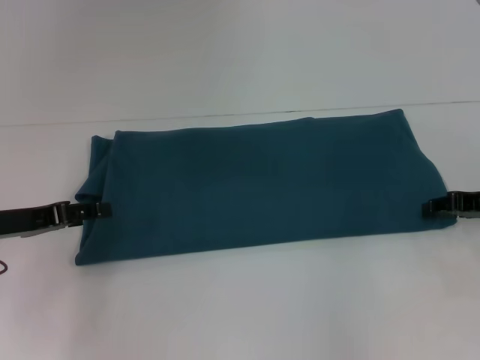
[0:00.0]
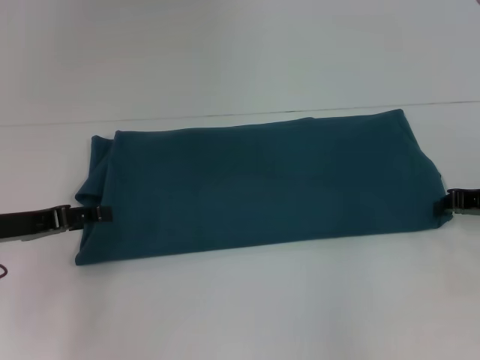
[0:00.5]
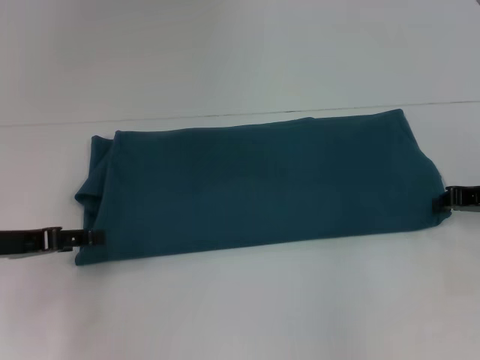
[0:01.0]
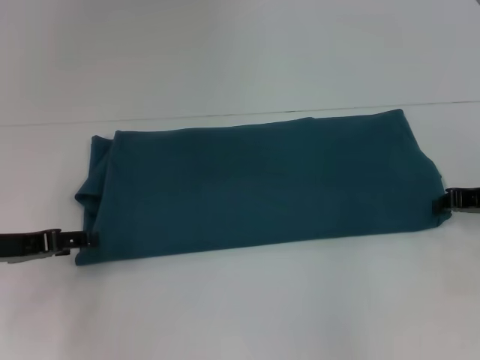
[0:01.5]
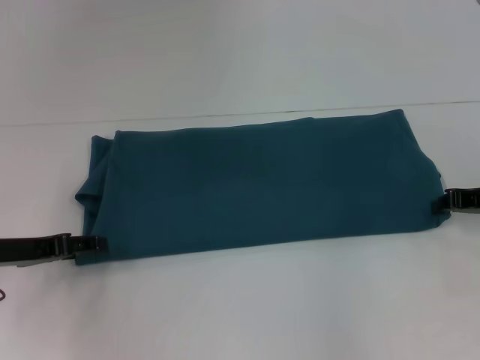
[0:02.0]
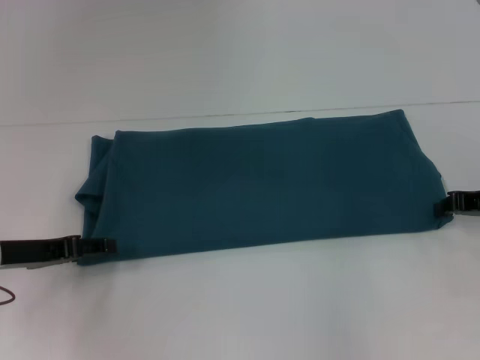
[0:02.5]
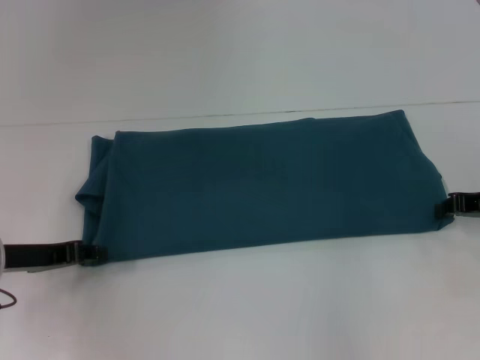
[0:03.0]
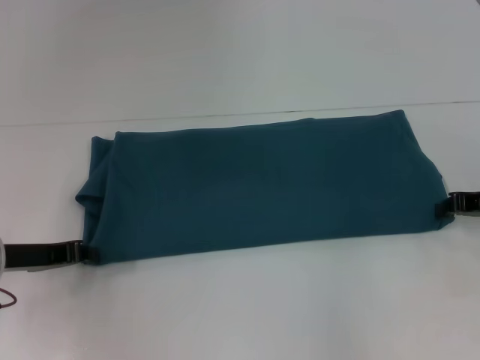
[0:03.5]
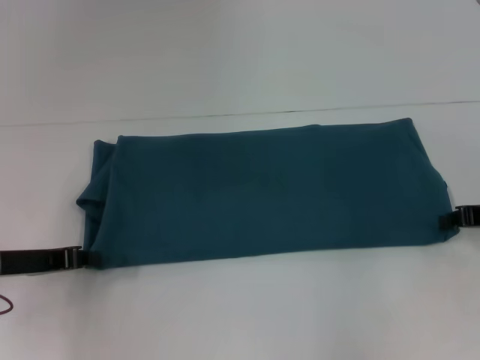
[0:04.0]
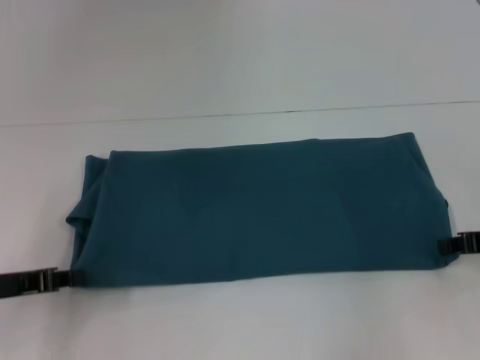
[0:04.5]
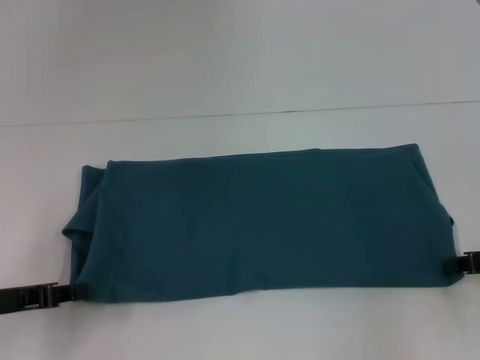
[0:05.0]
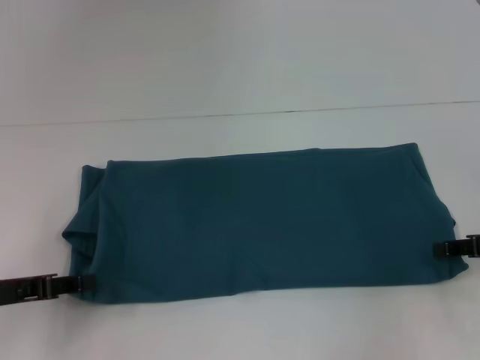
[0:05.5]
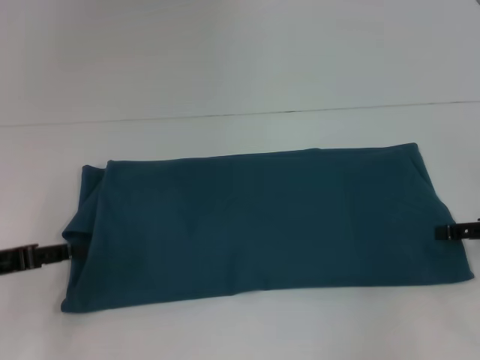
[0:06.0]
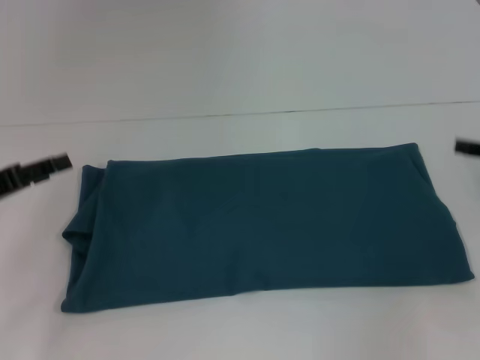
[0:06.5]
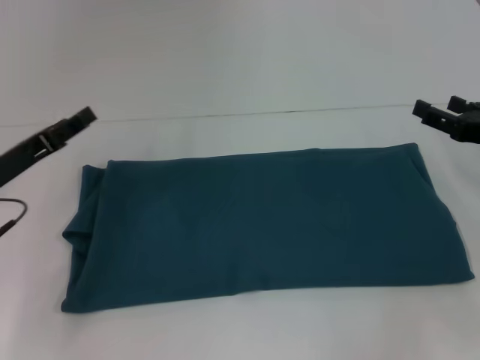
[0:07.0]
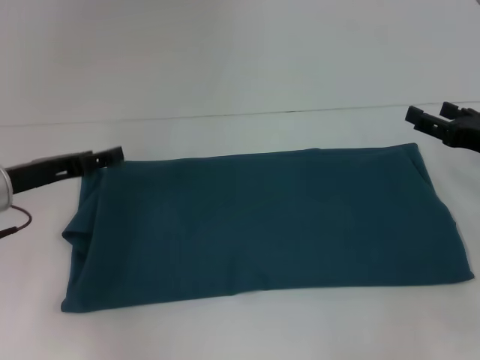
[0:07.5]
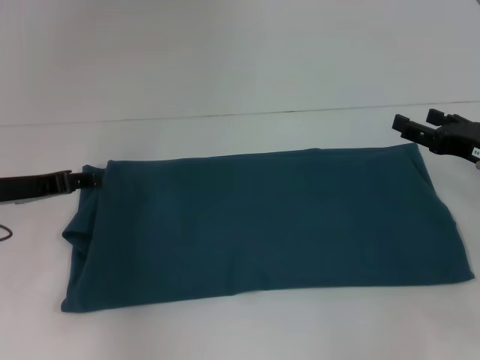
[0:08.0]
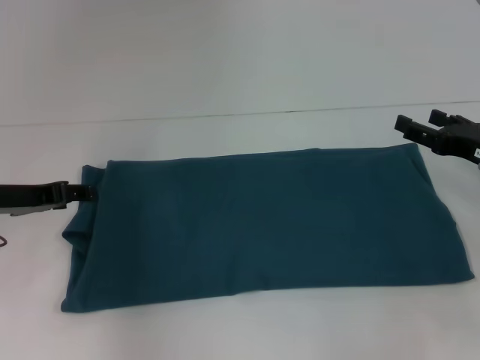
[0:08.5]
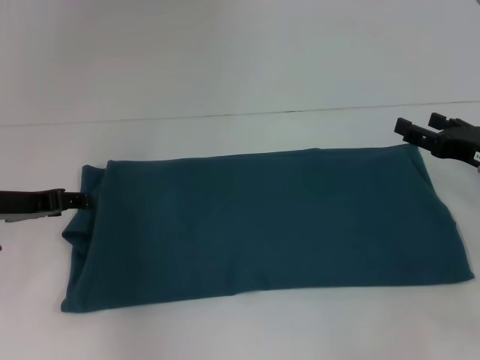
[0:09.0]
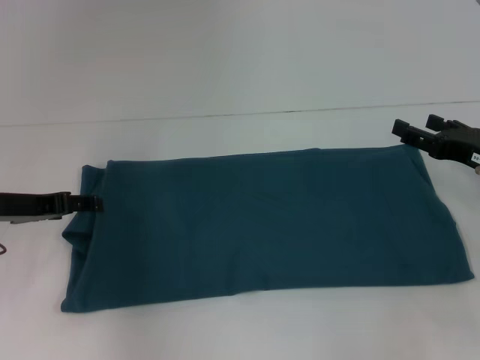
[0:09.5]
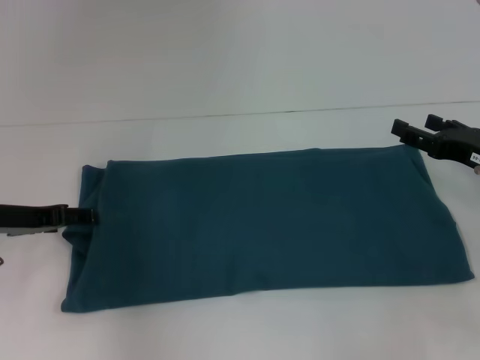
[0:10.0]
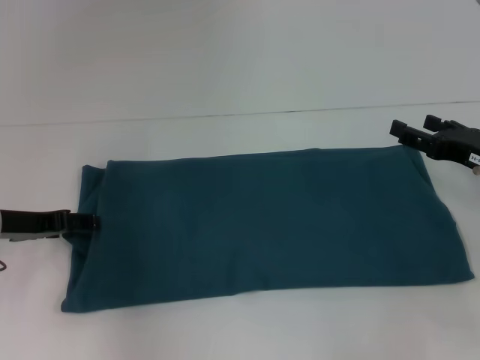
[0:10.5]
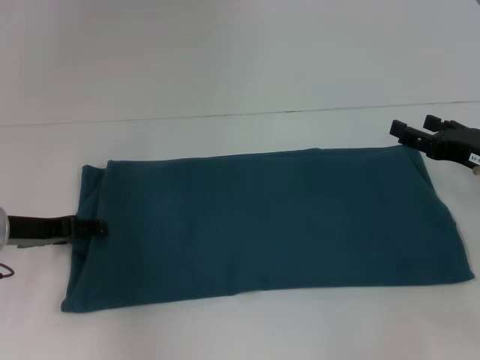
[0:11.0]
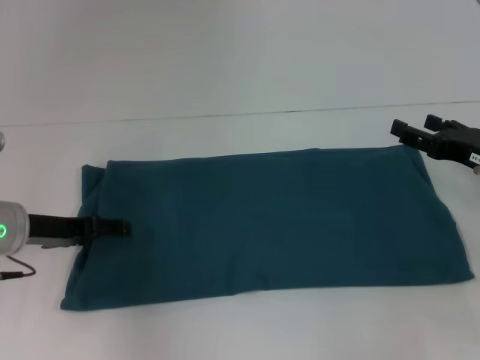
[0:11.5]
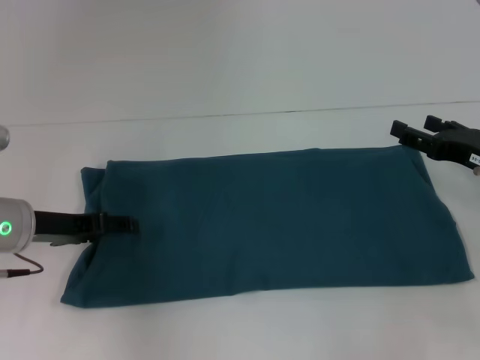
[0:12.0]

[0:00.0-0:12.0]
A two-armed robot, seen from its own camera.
Step, 0:00.0 to 0:05.5: Pull the clothes with your left hand.
Step, 0:00.0 to 0:05.5: Pull the clothes with your right hand.
0:02.0 to 0:04.0: The left gripper closes.
0:04.0 to 0:06.0: The right gripper opens its fingers; the left gripper shifts by some 5 cm, and opens its fingers.
0:06.0 to 0:08.0: The left gripper moves forward, roughly 10 cm, while the right gripper changes place by some 5 cm.
0:08.0 to 0:12.0: The grippers move only a little.

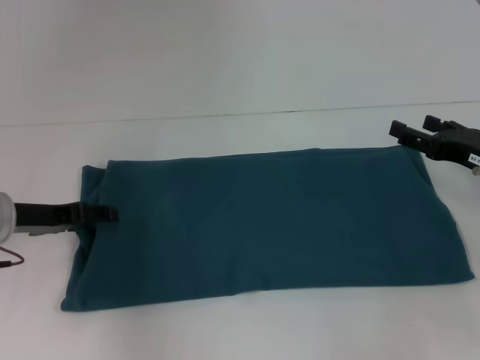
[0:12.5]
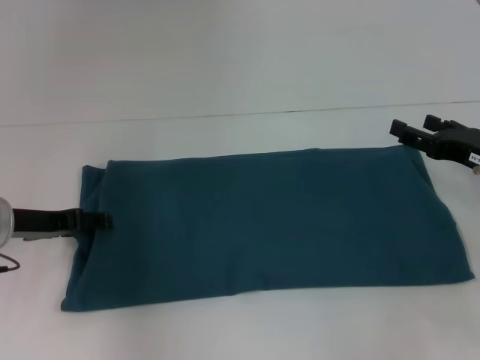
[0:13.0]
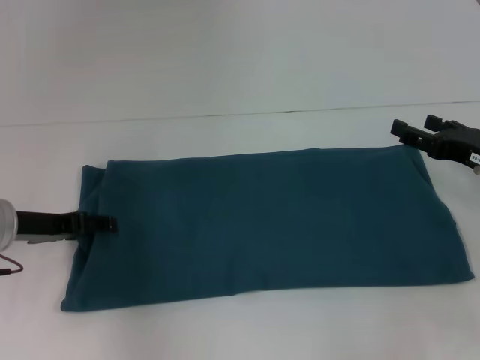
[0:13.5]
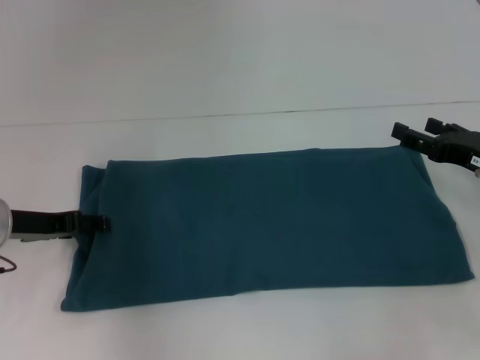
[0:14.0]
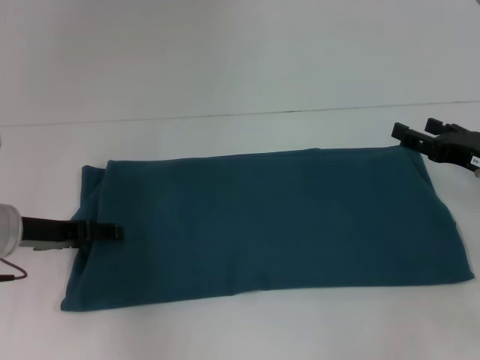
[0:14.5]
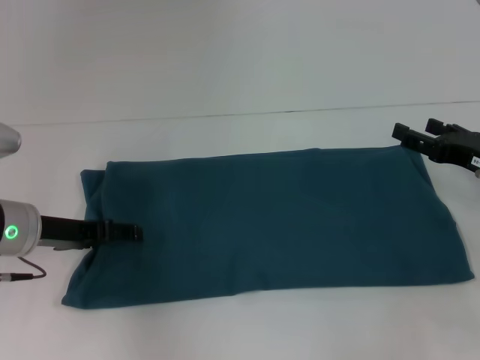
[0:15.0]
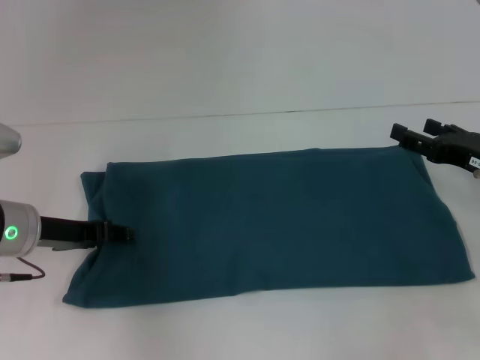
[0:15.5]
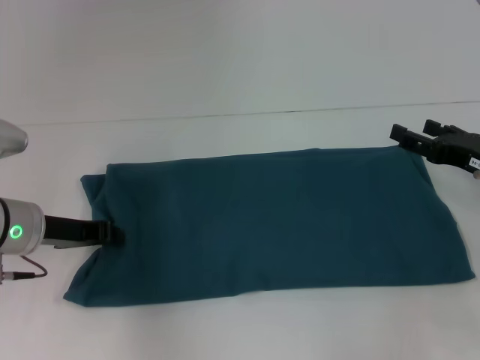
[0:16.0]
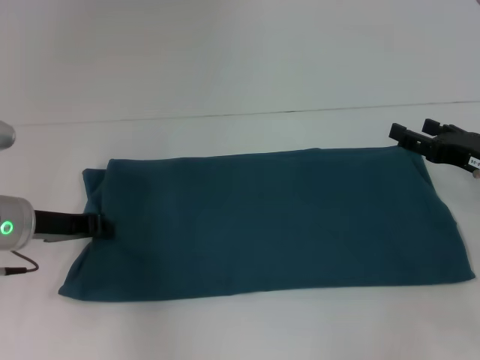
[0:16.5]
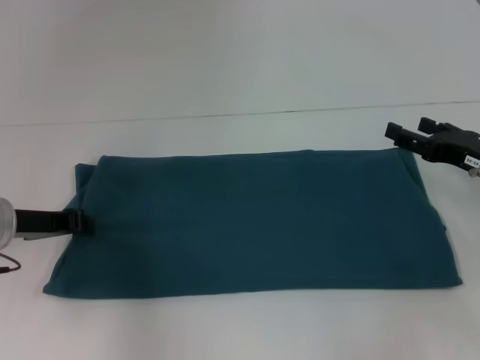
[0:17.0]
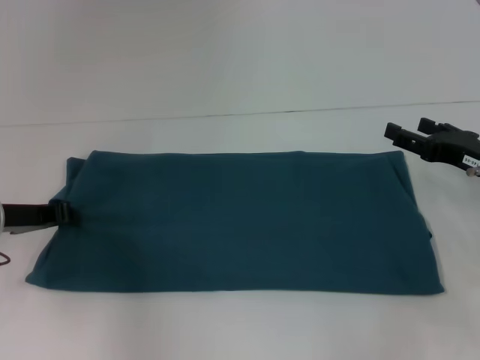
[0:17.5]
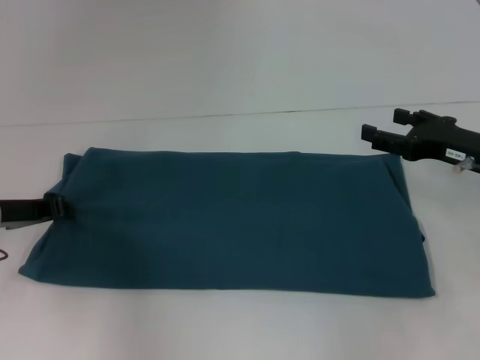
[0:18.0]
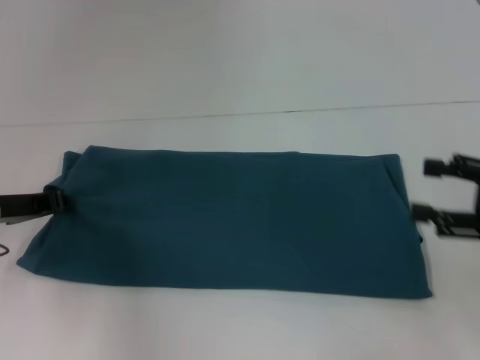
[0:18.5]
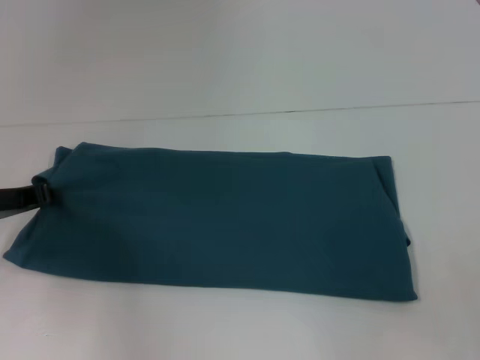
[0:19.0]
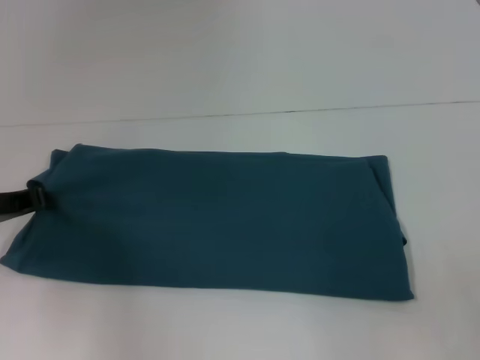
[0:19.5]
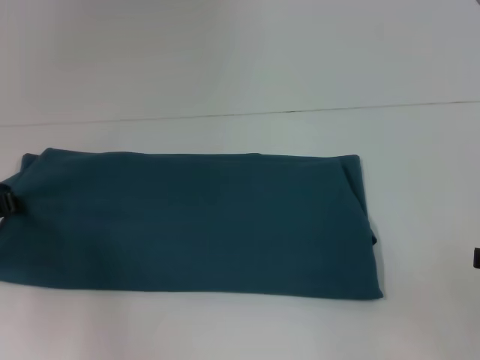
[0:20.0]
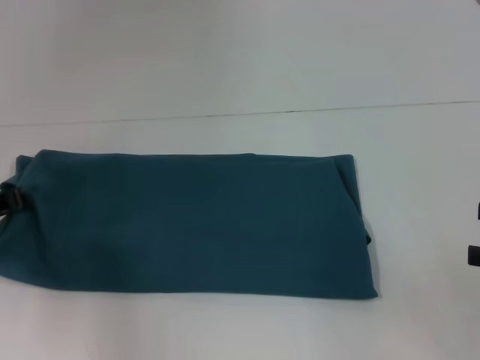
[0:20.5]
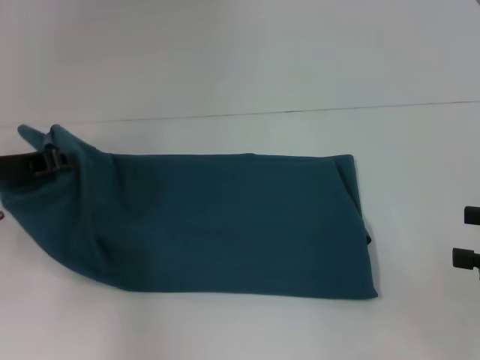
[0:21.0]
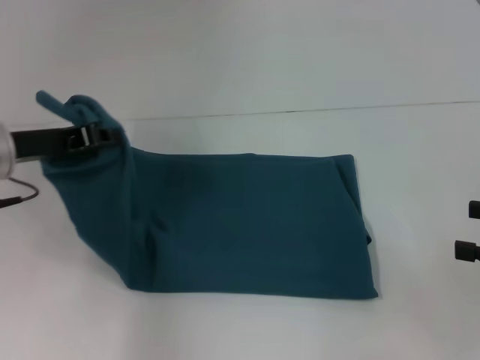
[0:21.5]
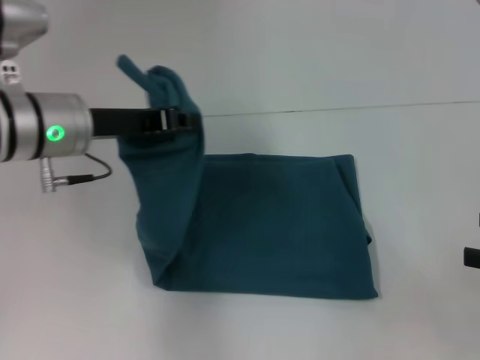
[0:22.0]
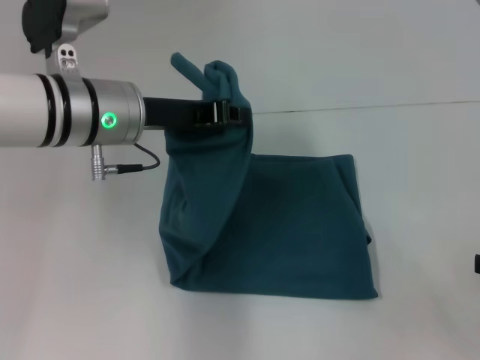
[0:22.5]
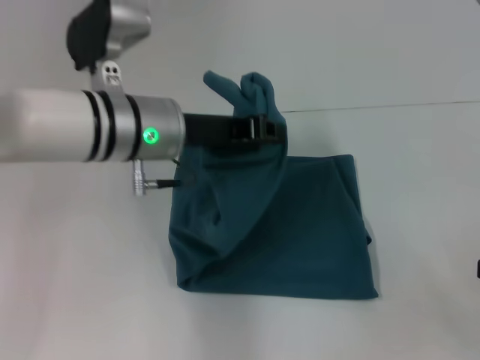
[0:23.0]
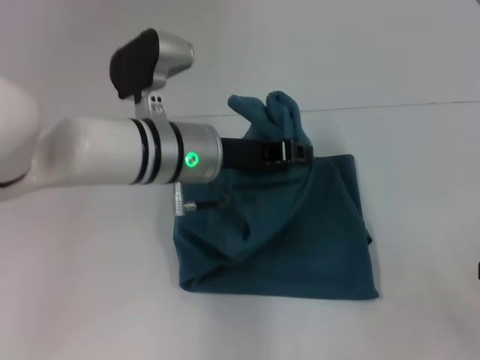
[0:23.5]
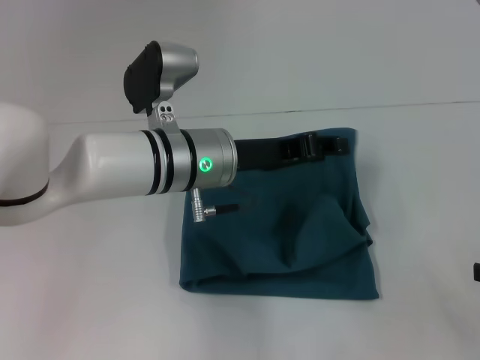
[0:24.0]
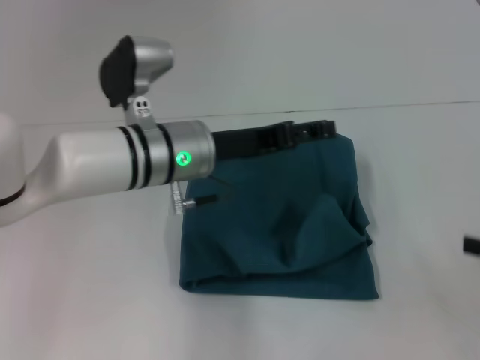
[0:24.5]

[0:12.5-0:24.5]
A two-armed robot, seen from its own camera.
Step, 0:12.5 to 0:24.0: Fold the clothes to the left.
0:12.5 to 0:14.5: Neither gripper changes place.
0:14.5 to 0:16.5: The left gripper closes its fingers.
0:16.5 to 0:18.5: The right gripper goes roughly 10 cm backward and upward.
0:20.5 to 0:22.5: The left gripper goes about 20 cm to the right and upward.
0:22.5 to 0:24.5: The left gripper is displaced to the right and downward by some 10 cm, and opens its fingers.

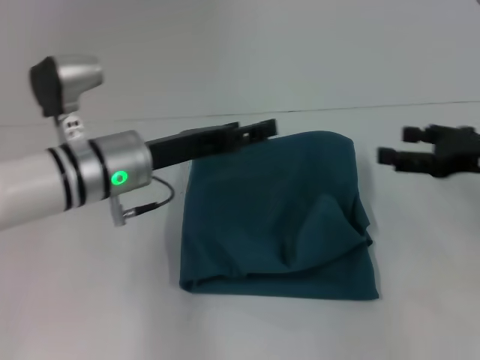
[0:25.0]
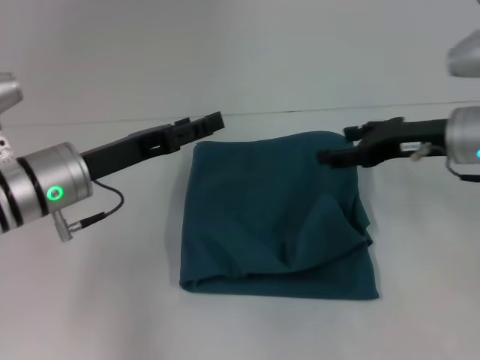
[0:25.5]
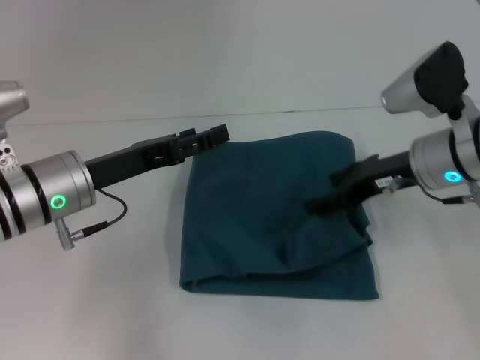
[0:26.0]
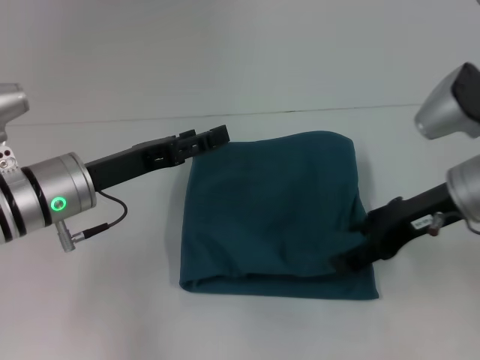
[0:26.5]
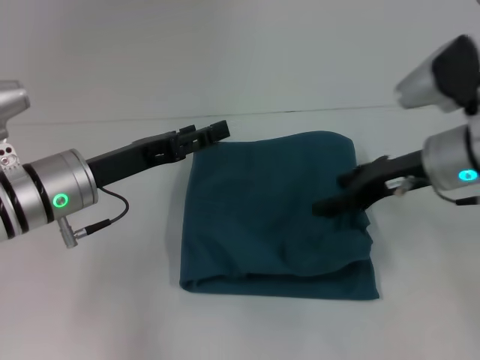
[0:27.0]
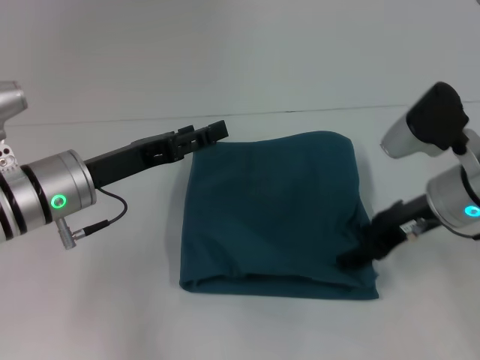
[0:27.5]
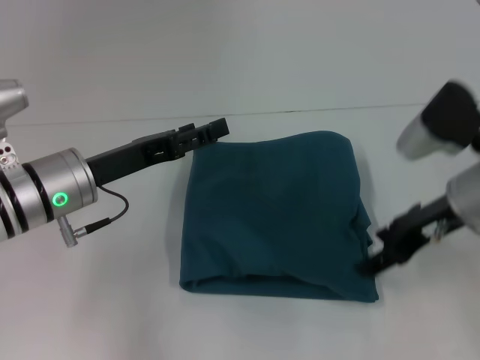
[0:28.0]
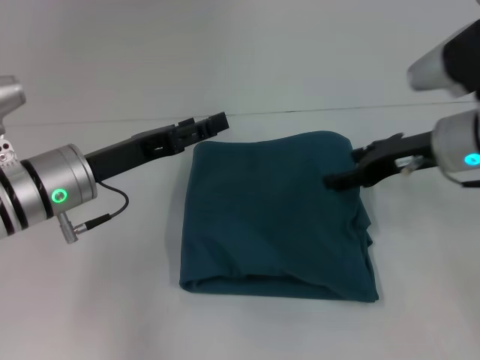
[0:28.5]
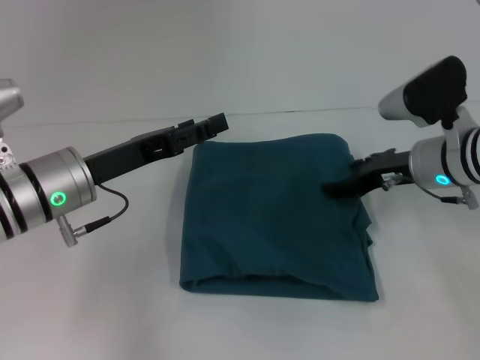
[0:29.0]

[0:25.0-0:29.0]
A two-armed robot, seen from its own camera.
0:25.0 to 0:27.0: The right gripper heads to the left, covering about 10 cm; the left gripper moves to the left, approximately 5 cm.
0:27.0 to 0:29.0: The right gripper ends up some 5 cm from where it was.
